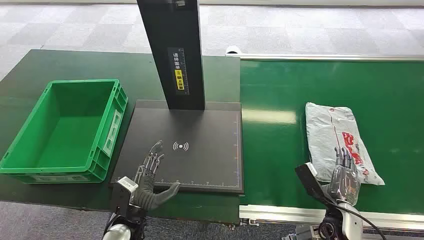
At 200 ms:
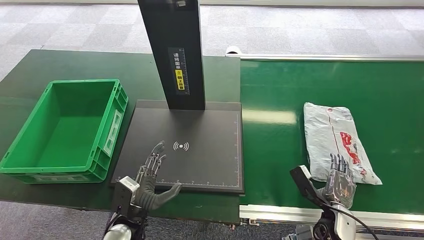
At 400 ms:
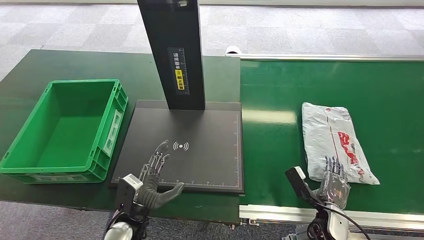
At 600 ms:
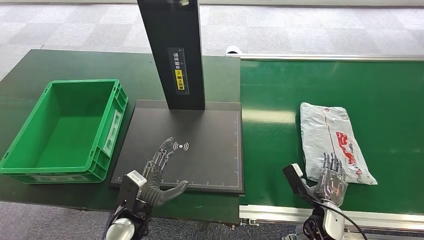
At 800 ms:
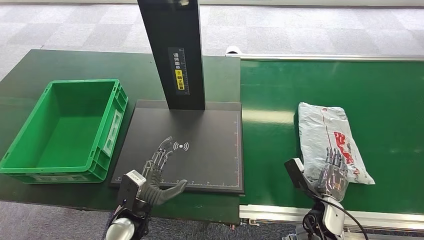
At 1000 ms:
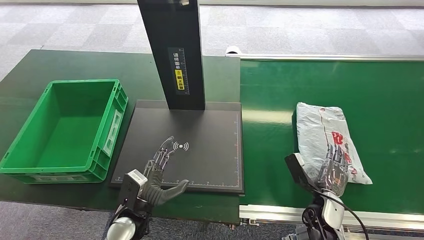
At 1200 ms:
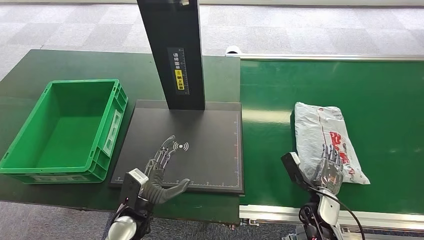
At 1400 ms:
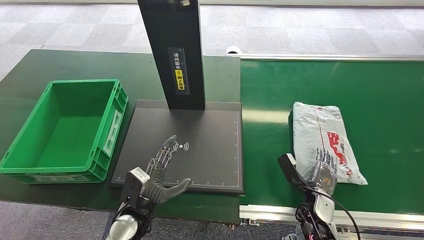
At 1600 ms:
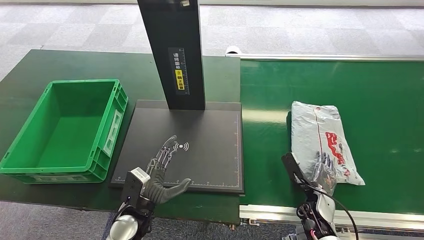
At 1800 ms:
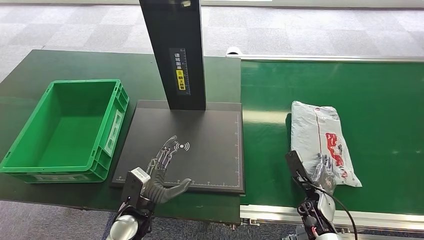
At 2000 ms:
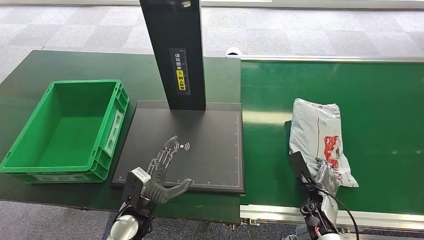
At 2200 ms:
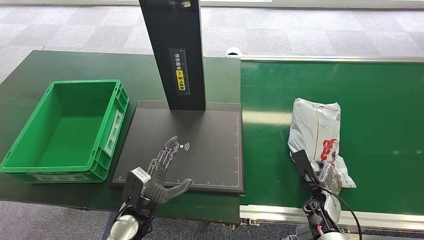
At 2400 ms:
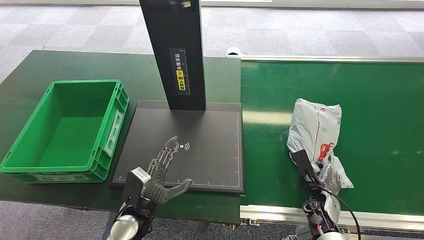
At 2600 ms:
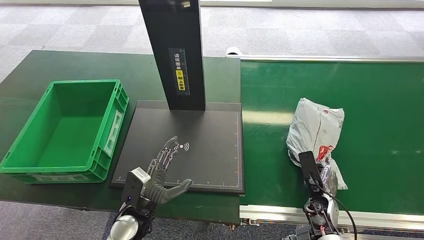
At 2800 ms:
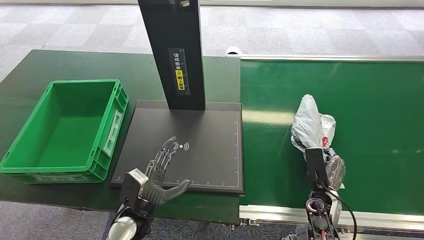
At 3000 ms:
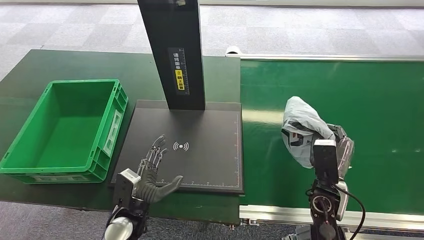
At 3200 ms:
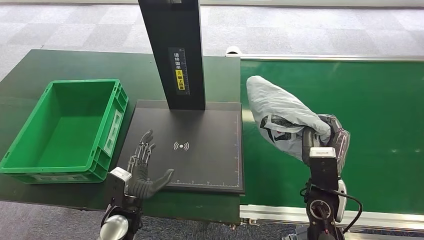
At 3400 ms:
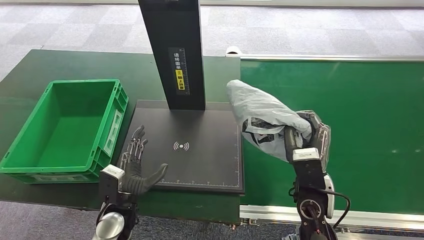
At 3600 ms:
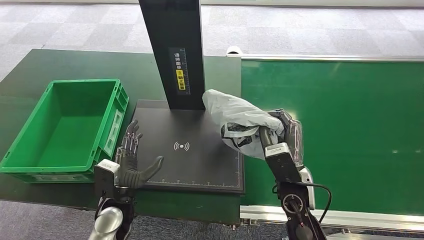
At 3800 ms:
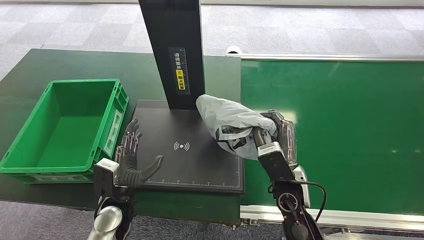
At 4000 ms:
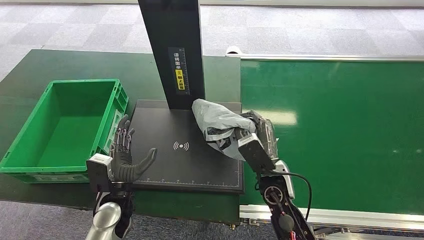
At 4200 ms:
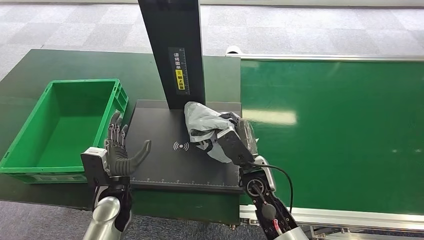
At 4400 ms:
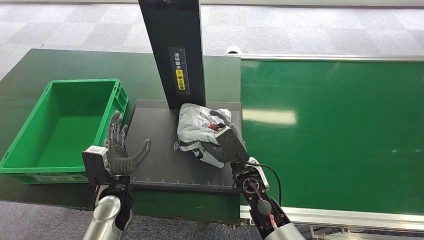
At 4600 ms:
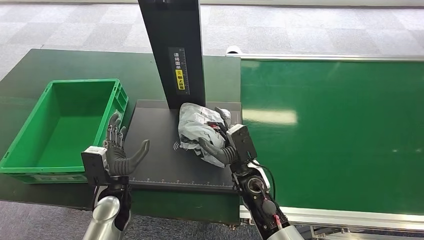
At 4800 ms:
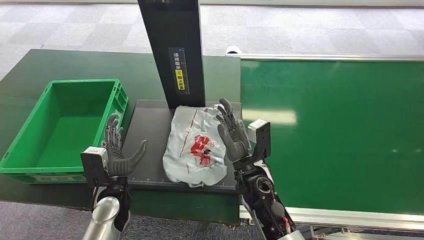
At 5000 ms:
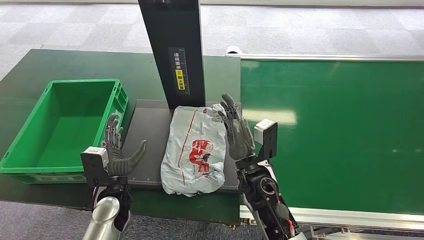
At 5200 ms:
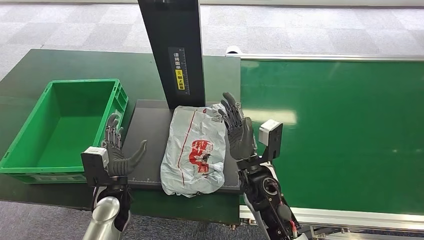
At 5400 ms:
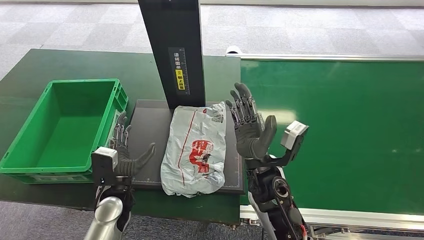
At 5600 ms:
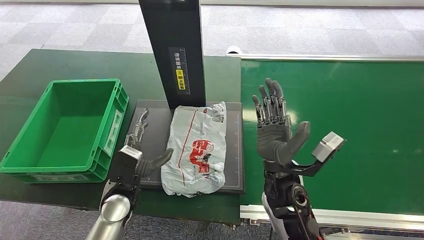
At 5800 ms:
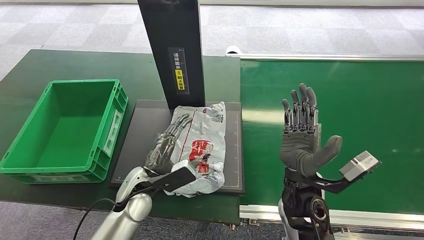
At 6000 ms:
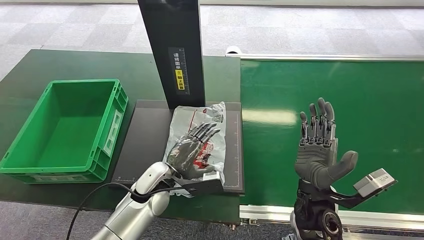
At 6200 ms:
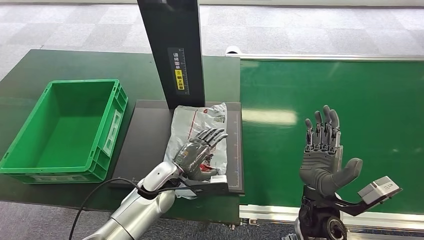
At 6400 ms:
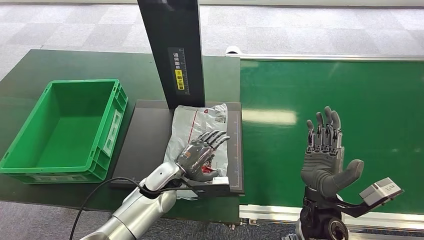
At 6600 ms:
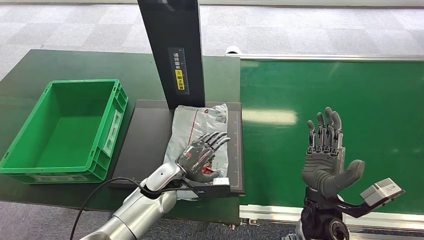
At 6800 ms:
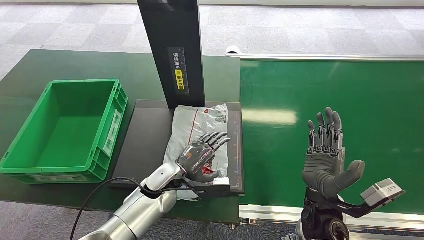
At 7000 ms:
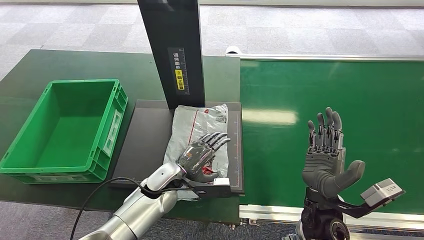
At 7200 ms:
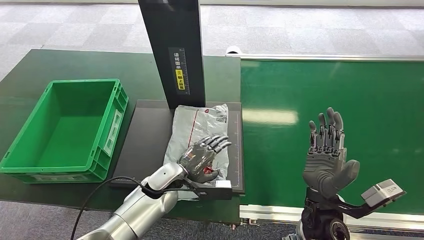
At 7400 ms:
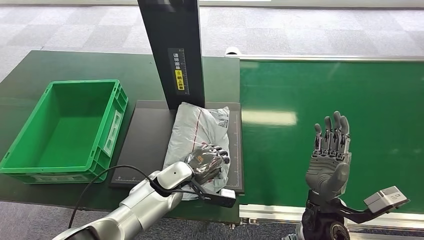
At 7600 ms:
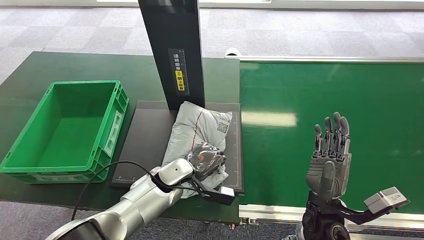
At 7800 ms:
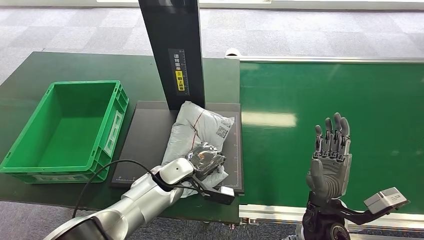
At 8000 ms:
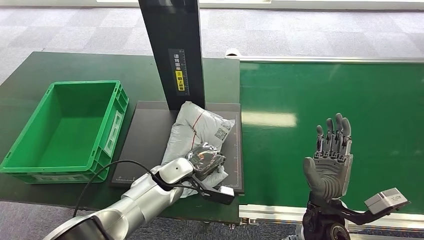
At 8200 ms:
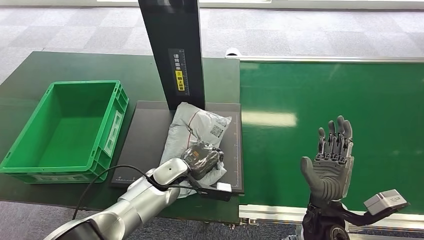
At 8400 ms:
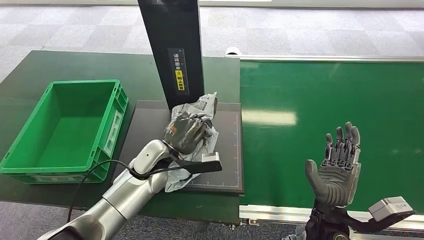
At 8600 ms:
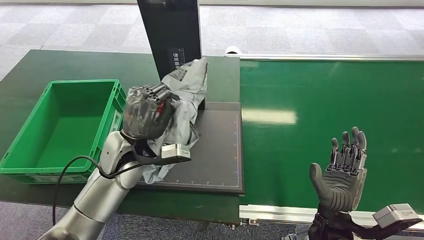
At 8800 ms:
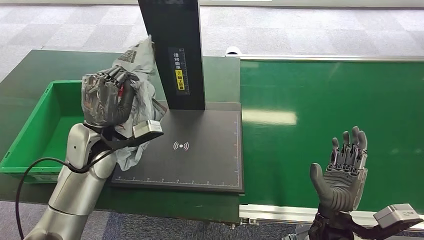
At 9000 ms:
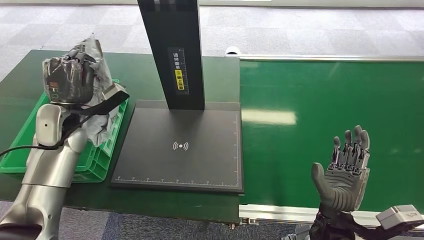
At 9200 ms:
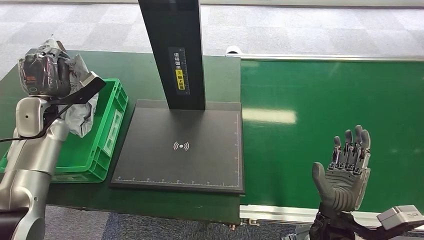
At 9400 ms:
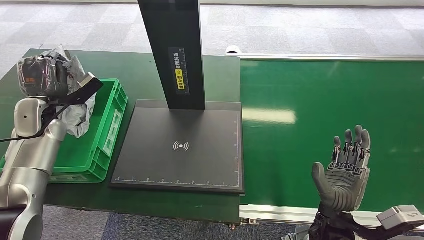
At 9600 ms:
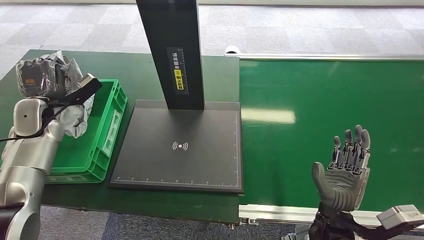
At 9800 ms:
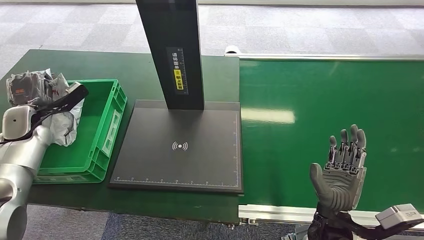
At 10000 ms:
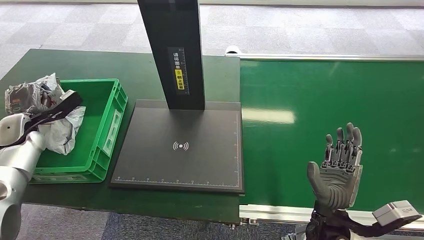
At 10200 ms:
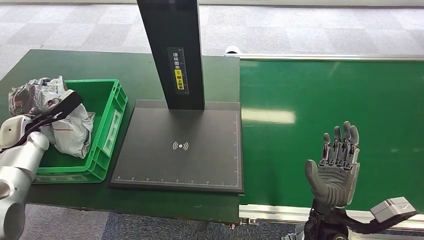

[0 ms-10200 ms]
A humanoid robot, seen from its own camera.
Step, 0 ms to 3600 ms: Pick up the package from the conveyor belt.
Step, 4200 ms to 5600 ms: Place the package onto the inbound machine.
Step, 6800 ms to 9200 ms: Pick up the package from the inbound machine.
1400 ms to 3000 ms: The right hand travels upward by some 10 cm.
3000 ms to 4400 ms: The right hand travels to the left by roughly 20 cm. The left hand changes place by approximately 5 cm.
4400 ms to 5800 ms: The right hand goes about 10 cm to the right and upward; the left hand moves to the right, approximately 5 cm.
5800 ms to 7200 ms: Both hands travel together to the right, about 5 cm.

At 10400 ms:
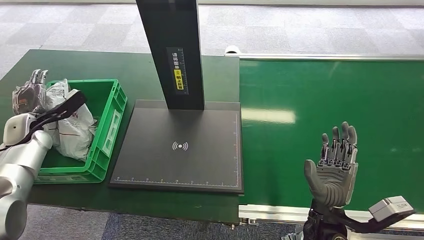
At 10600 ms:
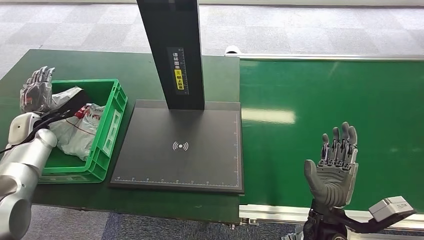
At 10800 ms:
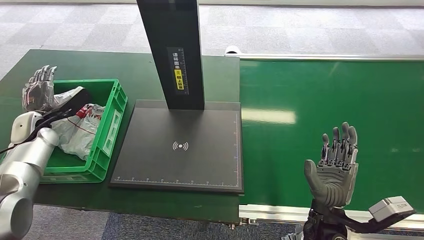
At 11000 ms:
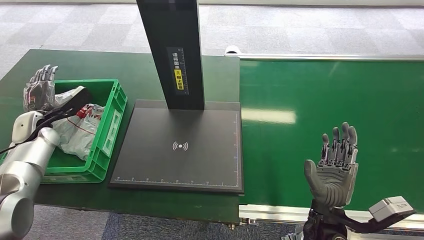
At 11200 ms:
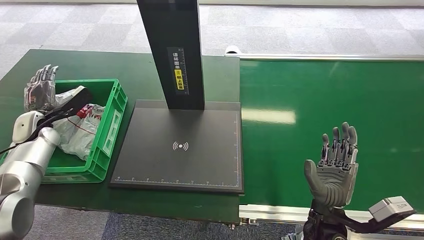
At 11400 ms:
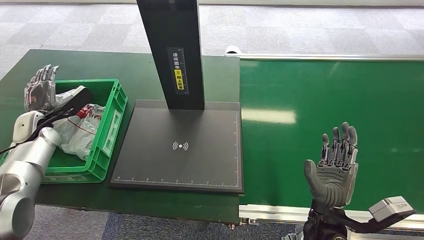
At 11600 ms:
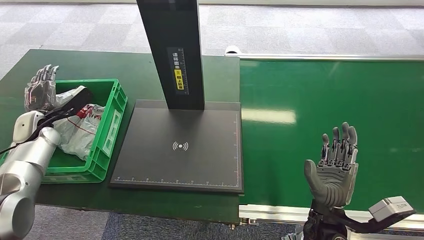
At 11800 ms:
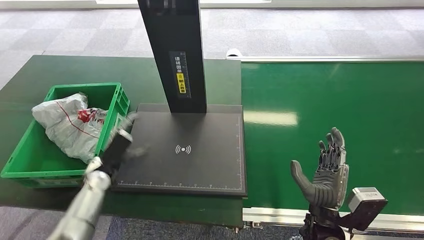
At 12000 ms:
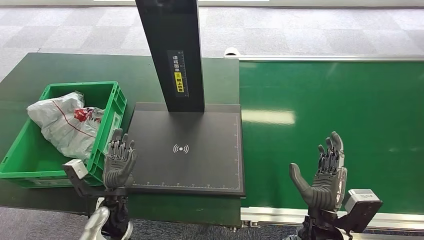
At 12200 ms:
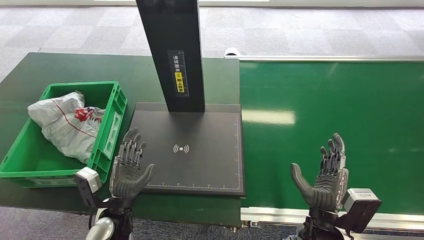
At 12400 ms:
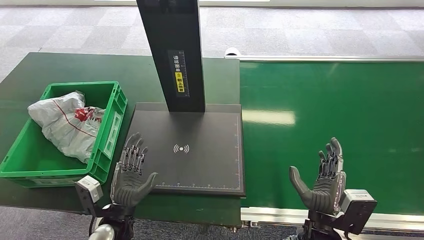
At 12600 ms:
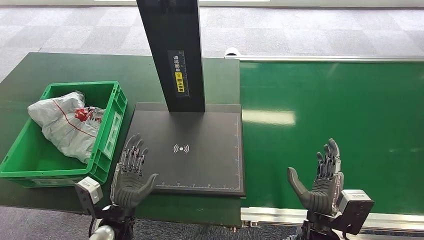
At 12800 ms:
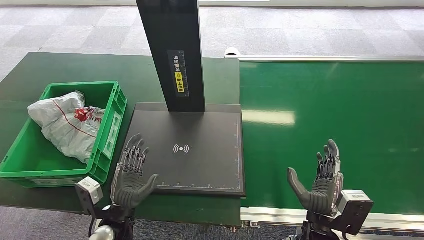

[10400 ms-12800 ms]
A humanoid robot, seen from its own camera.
Step, 10400 ms to 12800 ms: Place the package into the parcel locker.
10400 ms to 11600 ms: The hands move only a little.

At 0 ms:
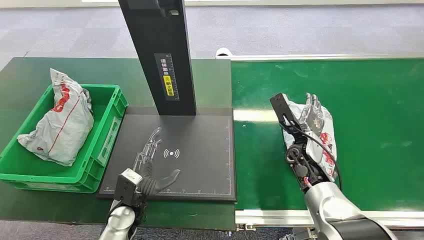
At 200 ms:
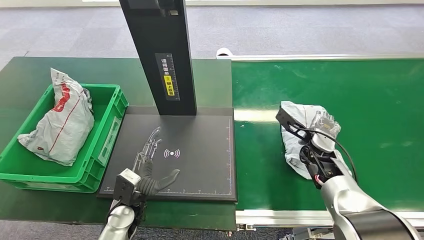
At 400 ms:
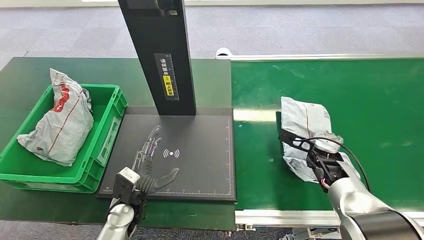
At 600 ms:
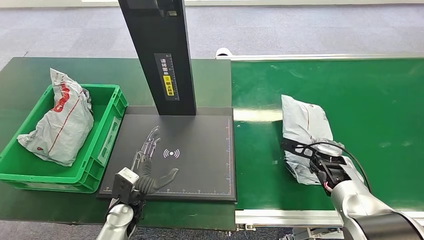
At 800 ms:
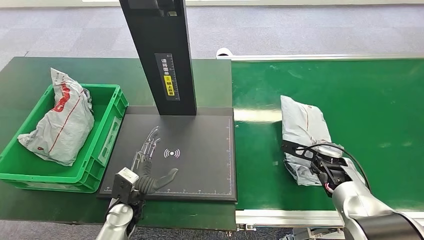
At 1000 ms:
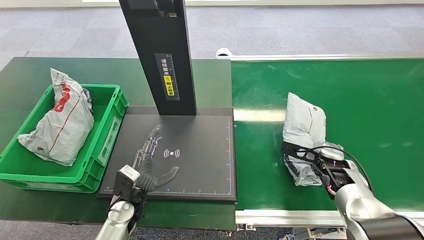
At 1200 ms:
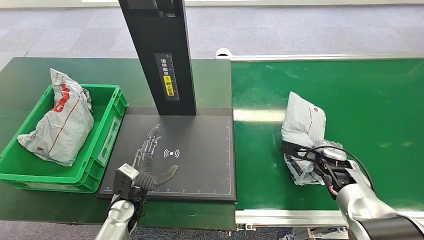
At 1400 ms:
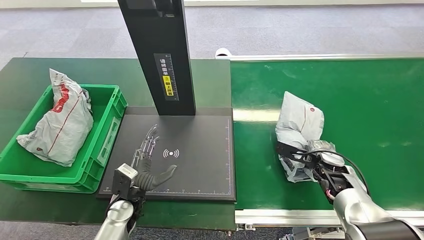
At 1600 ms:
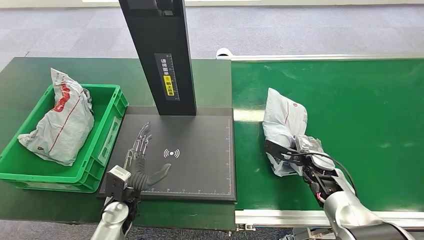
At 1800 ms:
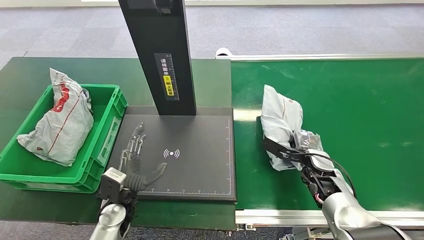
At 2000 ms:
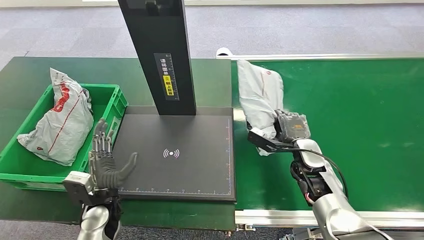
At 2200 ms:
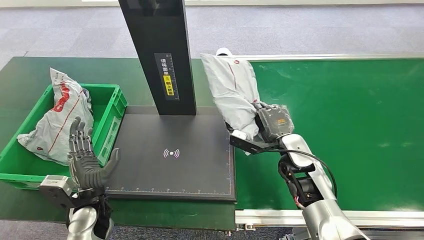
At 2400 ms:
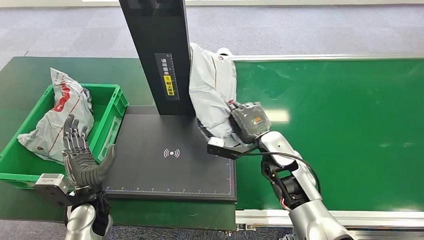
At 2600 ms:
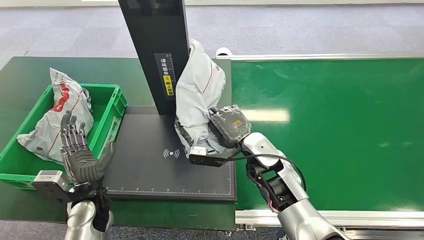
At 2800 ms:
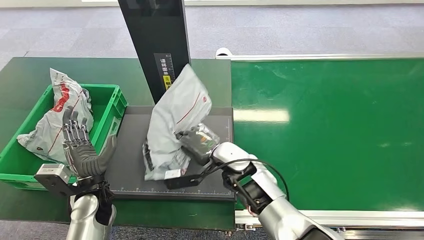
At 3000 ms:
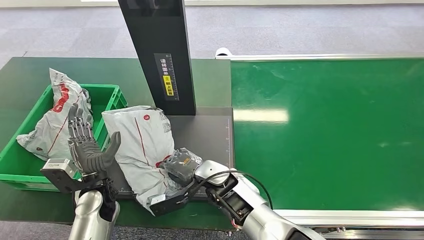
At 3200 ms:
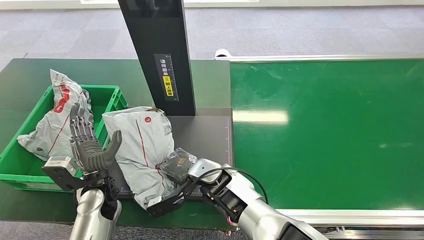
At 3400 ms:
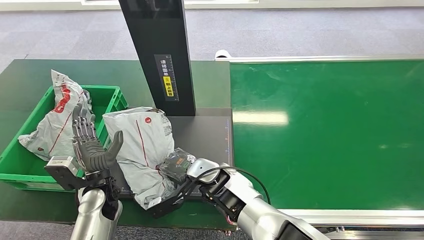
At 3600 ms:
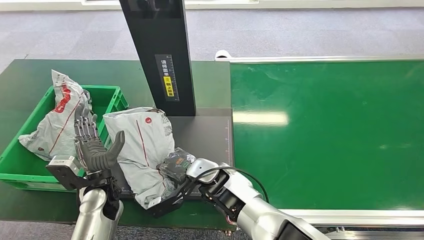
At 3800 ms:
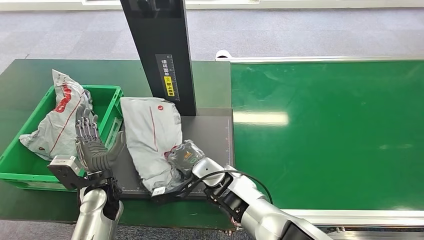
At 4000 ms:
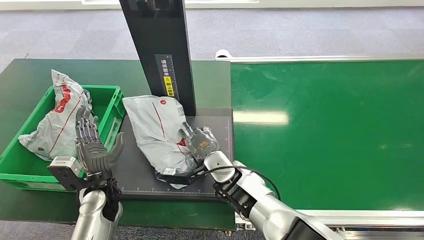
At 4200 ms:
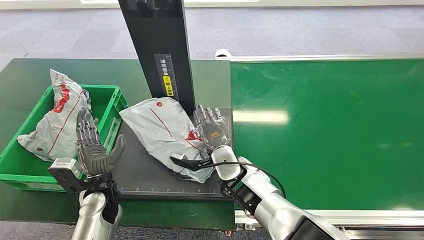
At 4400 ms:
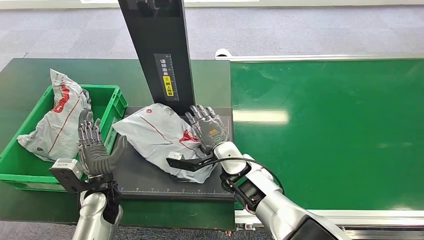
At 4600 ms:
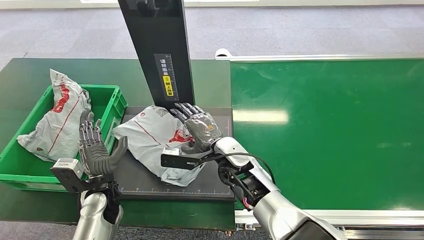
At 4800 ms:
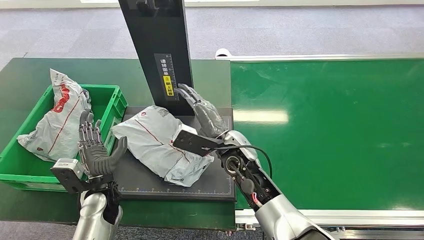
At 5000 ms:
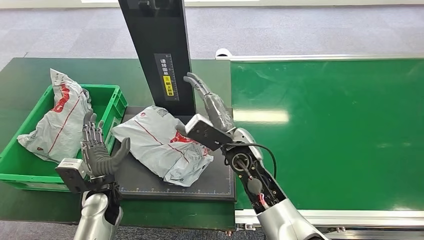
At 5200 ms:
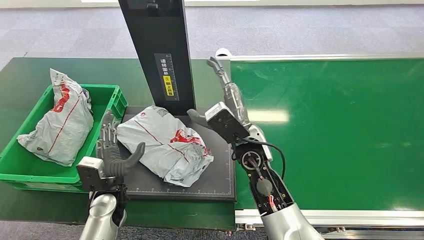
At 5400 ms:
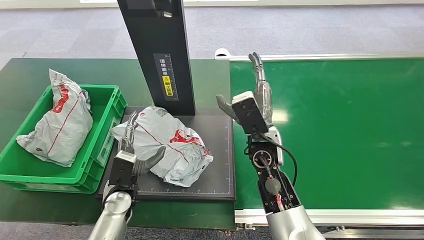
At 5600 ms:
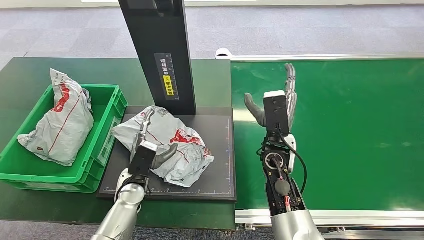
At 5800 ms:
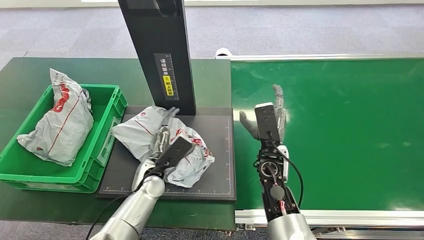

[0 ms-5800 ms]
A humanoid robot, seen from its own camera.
Step, 0 ms to 1800 ms: Pick up the package from the conveyor belt.
Step, 2200 ms to 4600 ms: Place the package onto the inbound machine.
4400 ms to 5800 ms: The right hand heads to the right, covering roughly 10 cm, while the left hand heads to the right and forward, covering some 10 cm.
